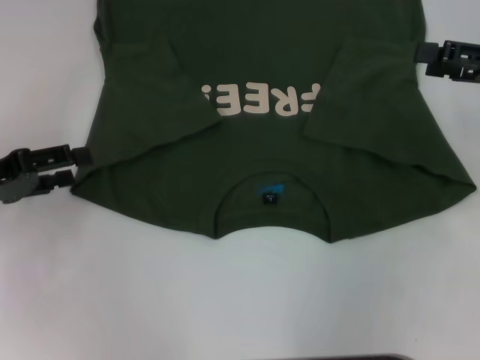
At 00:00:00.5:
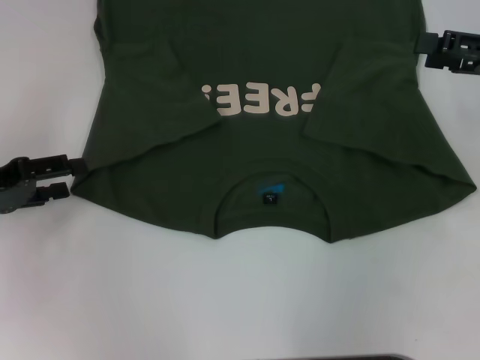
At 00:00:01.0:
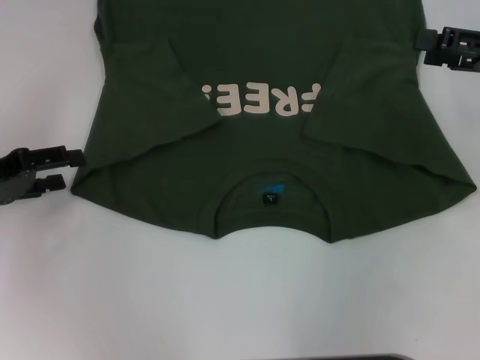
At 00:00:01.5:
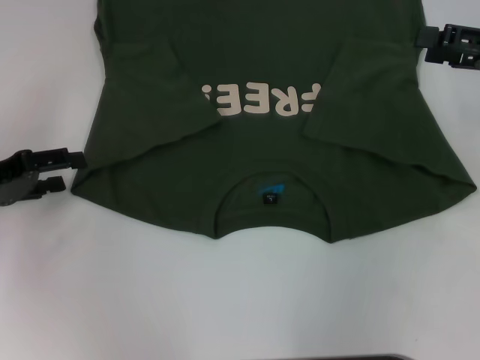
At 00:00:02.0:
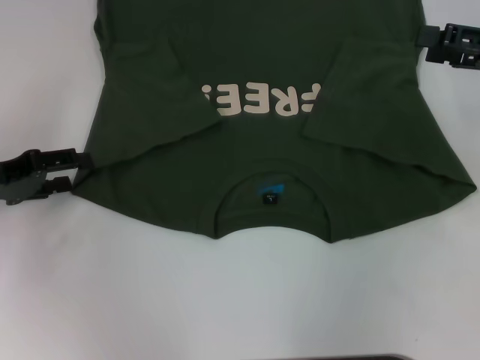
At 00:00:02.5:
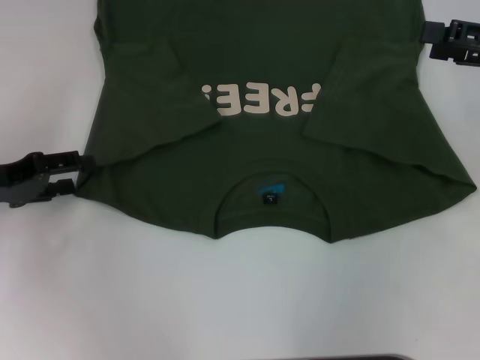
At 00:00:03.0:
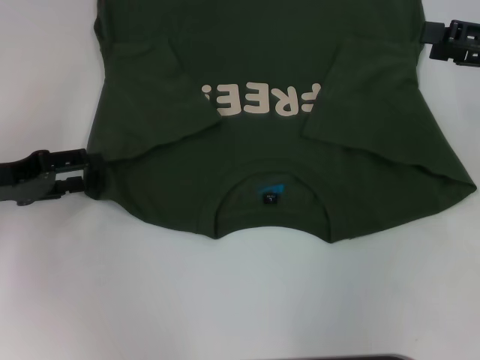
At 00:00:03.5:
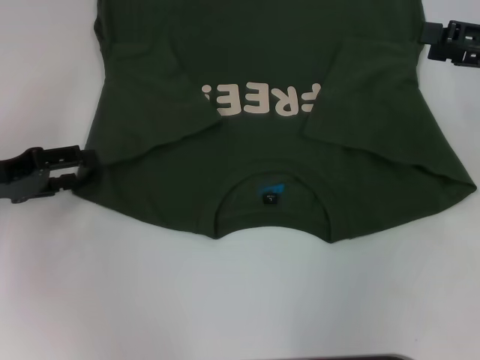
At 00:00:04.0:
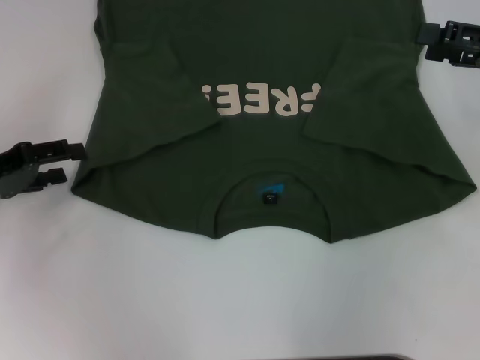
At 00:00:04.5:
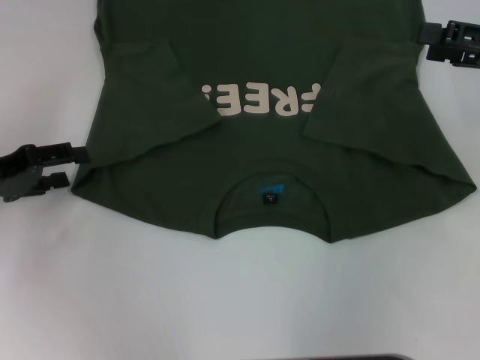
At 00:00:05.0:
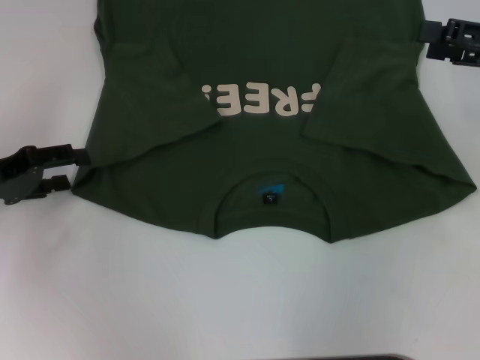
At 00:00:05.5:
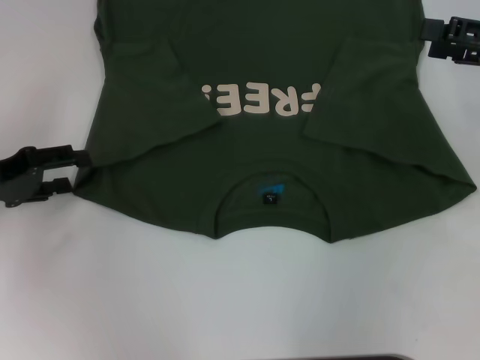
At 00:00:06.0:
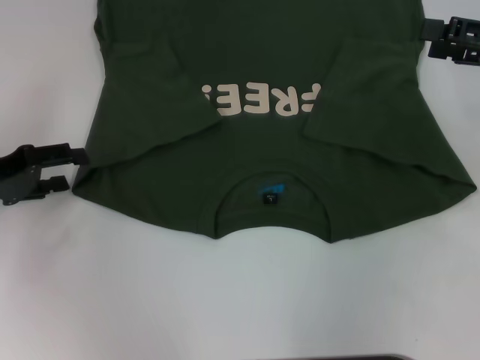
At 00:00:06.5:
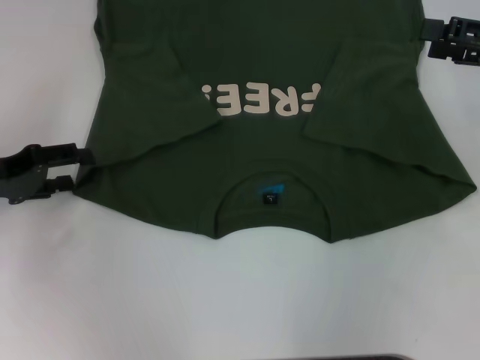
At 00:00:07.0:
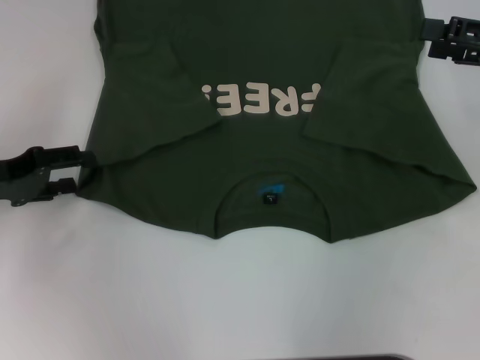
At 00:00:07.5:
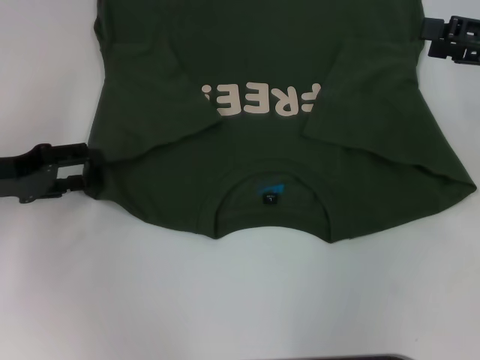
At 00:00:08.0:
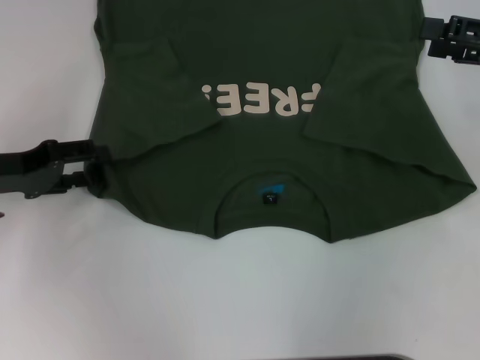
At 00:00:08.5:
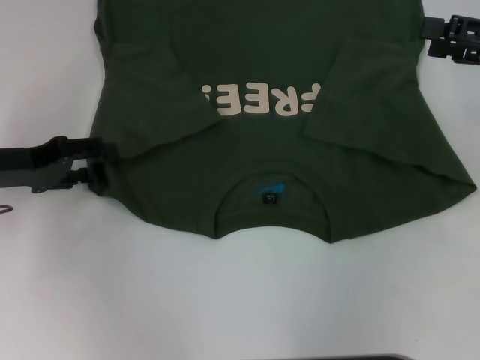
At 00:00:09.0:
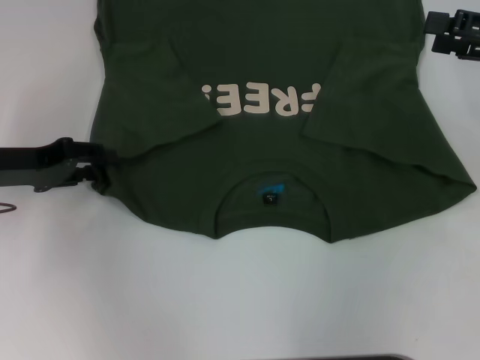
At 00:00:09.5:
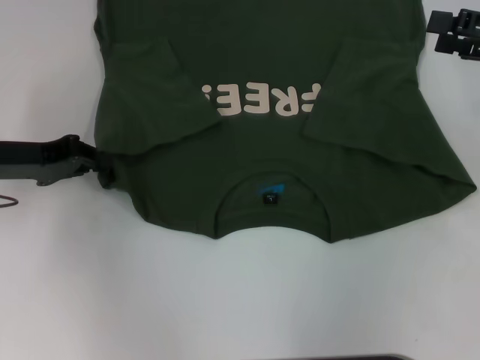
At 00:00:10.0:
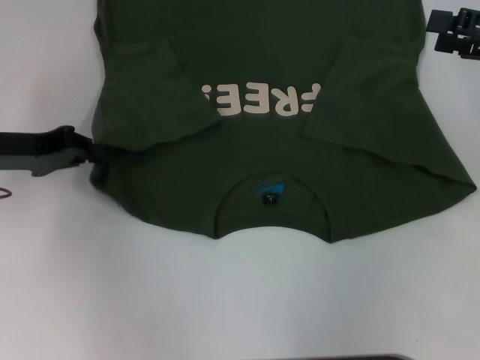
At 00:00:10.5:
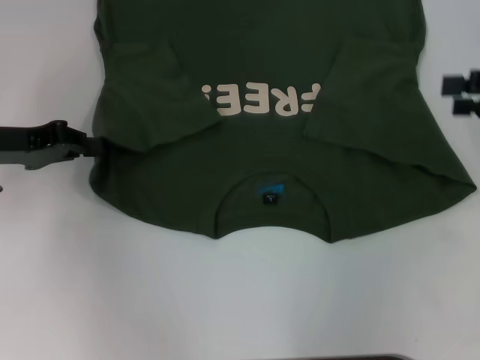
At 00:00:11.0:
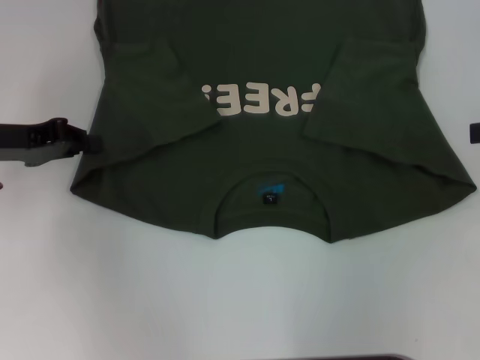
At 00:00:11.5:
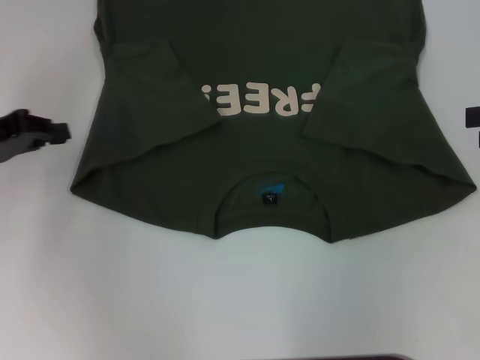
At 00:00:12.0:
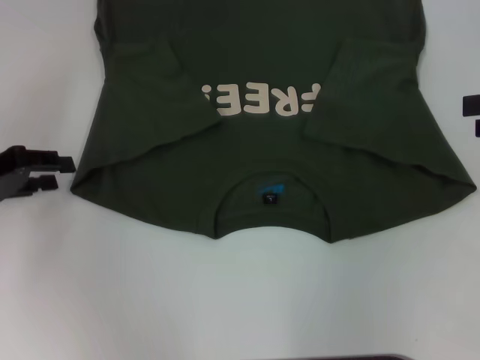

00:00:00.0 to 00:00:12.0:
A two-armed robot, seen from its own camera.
00:00:00.0 to 00:00:08.0: The grippers stay close to where they were, moving slightly.
00:00:08.0 to 00:00:10.0: The left gripper closes its fingers.
00:00:10.0 to 00:00:12.0: The left gripper shifts by roughly 5 cm.

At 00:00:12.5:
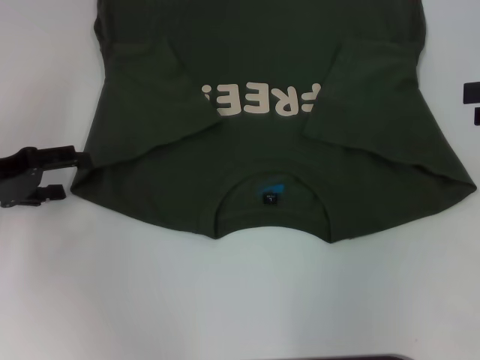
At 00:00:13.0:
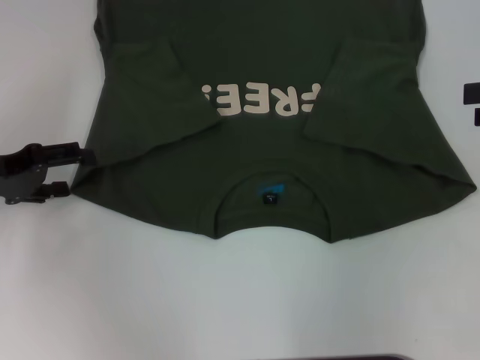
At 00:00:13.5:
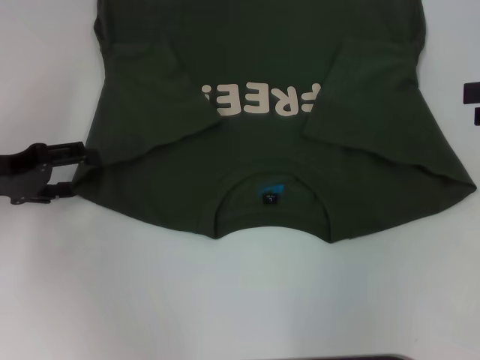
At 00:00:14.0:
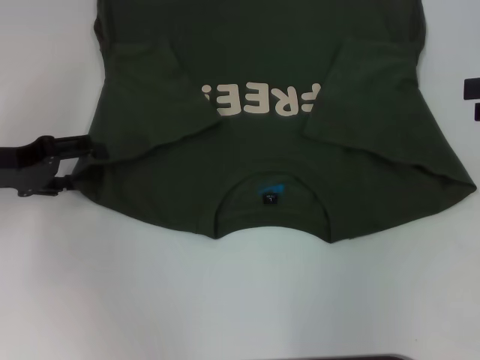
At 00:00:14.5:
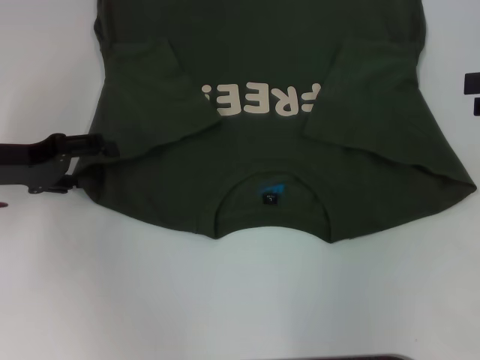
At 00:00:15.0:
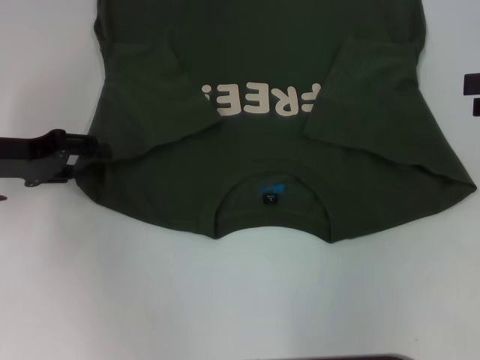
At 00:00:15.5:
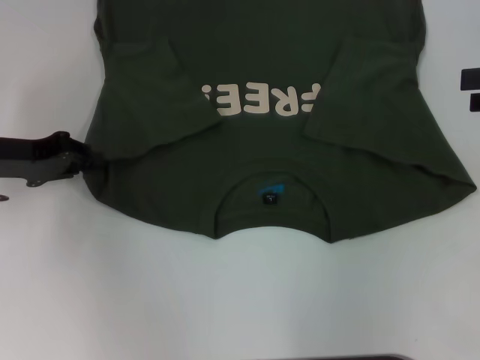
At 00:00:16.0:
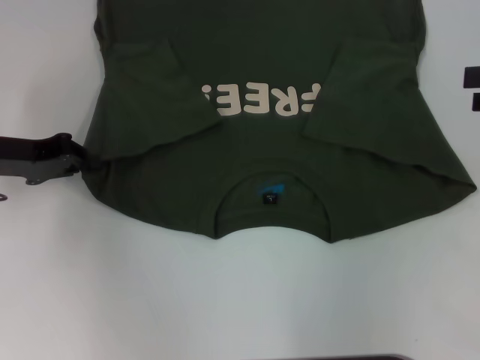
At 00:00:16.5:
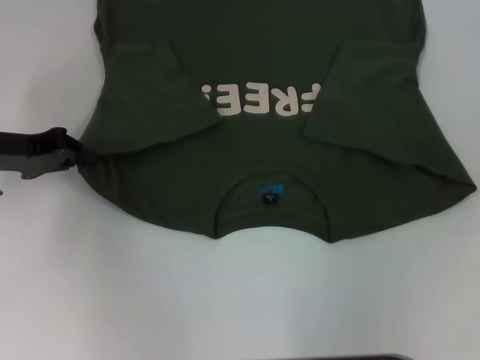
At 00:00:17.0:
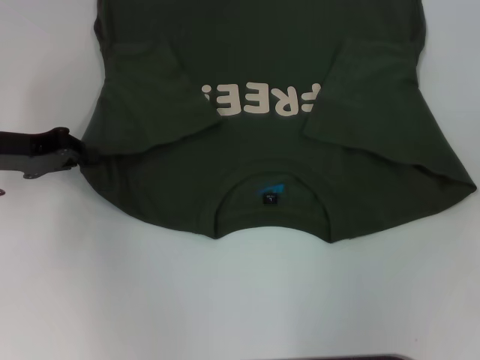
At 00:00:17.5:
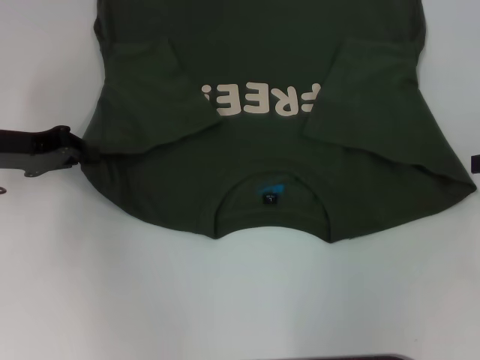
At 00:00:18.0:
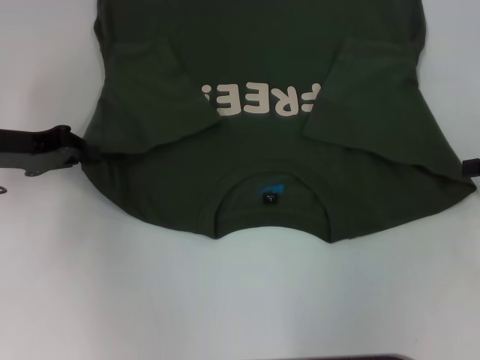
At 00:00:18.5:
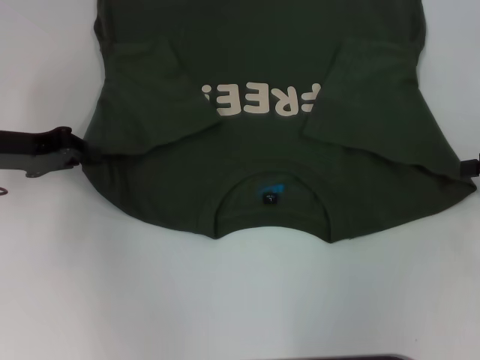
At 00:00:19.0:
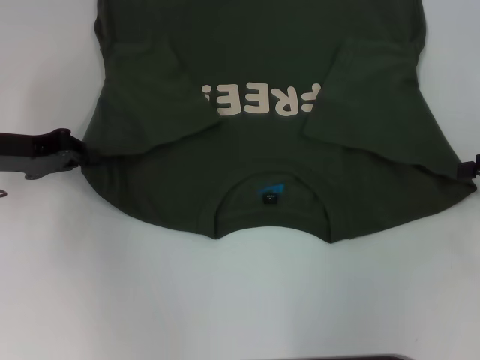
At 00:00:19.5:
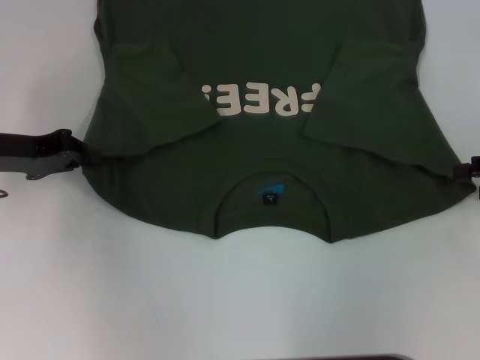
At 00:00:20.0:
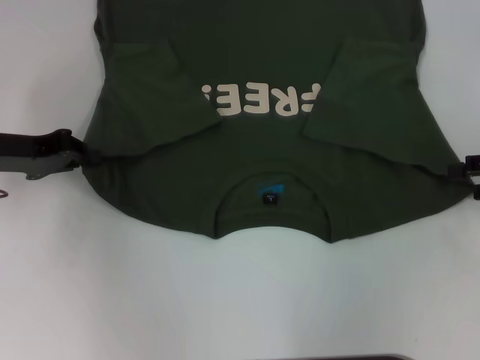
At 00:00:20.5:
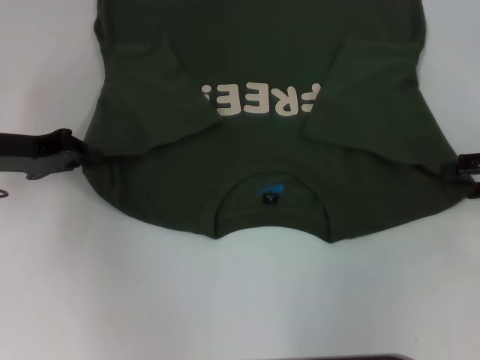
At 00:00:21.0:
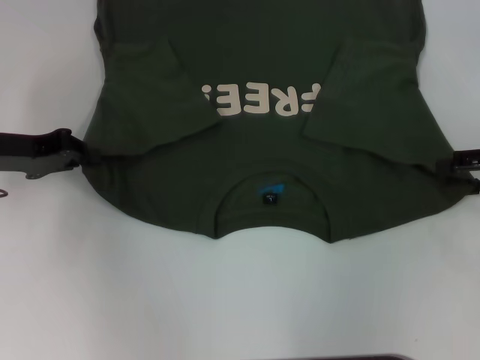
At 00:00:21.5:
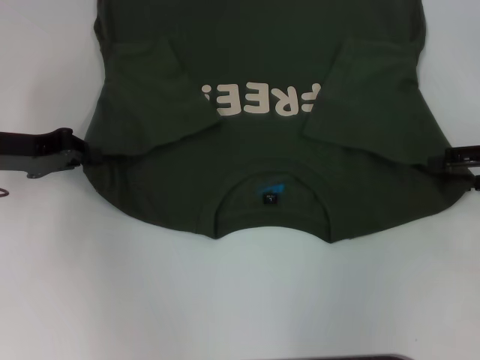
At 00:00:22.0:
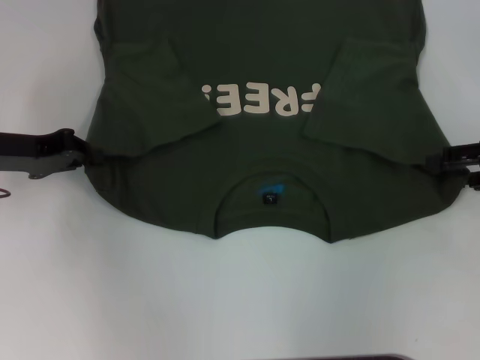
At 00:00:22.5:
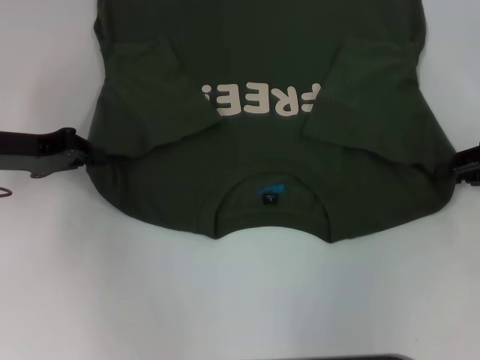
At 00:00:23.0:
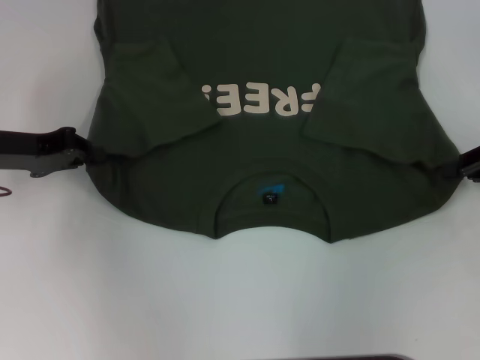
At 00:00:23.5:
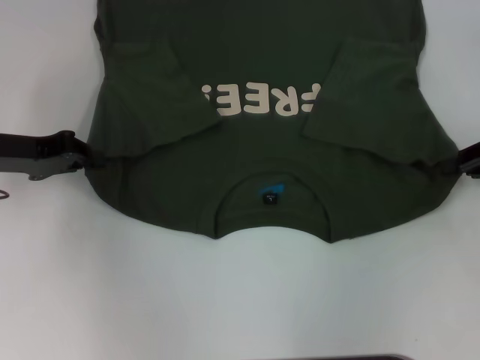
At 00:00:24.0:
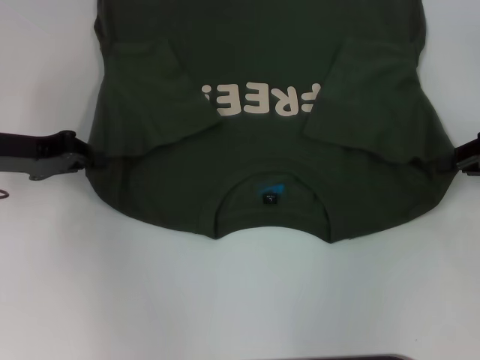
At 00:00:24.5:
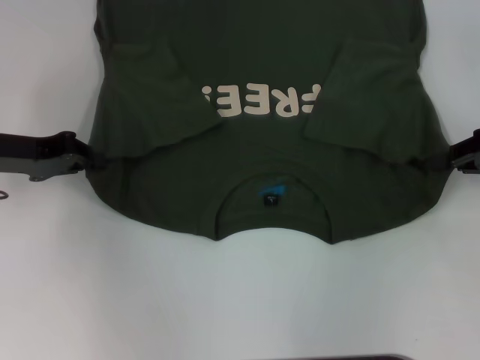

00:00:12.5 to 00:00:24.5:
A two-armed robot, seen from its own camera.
Step, 00:00:12.5 to 00:00:15.5: Grab the bottom left corner with your left hand.
Step, 00:00:16.0 to 00:00:22.5: Grab the bottom right corner with your right hand.
00:00:12.5 to 00:00:14.5: There are only small adjustments of the grippers.
00:00:14.5 to 00:00:16.5: The left gripper closes its fingers.
00:00:20.5 to 00:00:22.5: The right gripper closes.
00:00:22.5 to 00:00:24.5: The right gripper closes.

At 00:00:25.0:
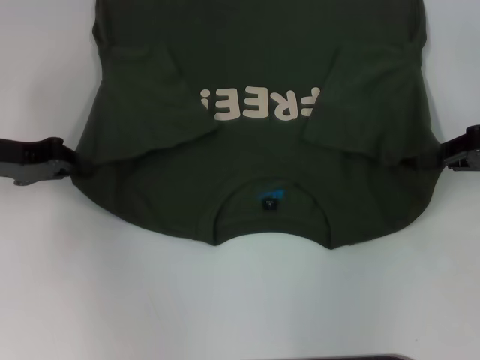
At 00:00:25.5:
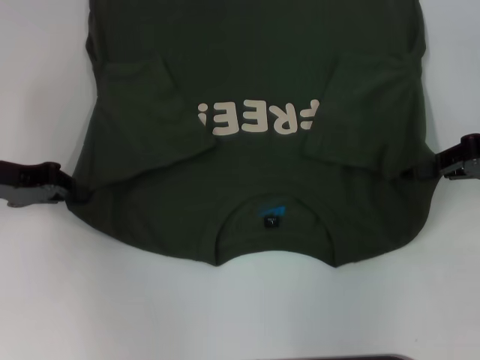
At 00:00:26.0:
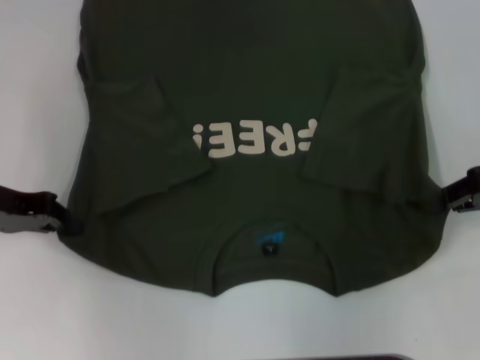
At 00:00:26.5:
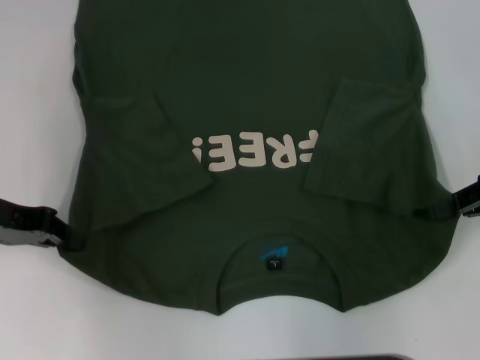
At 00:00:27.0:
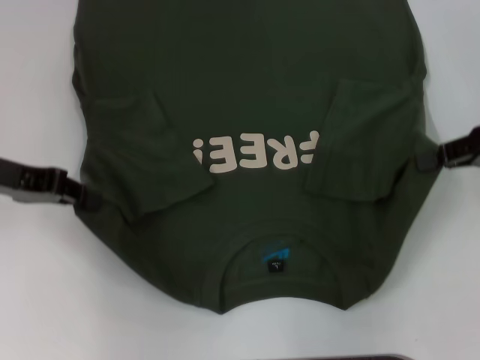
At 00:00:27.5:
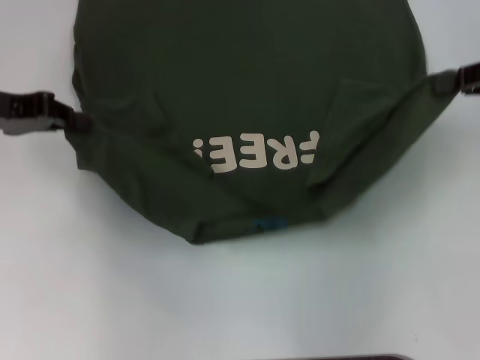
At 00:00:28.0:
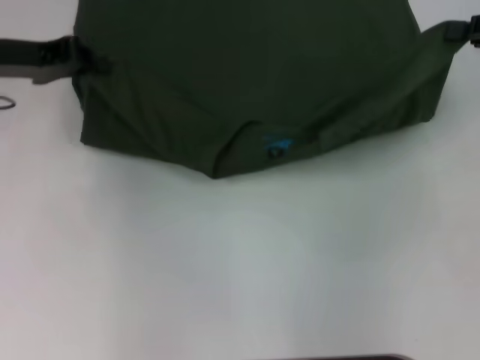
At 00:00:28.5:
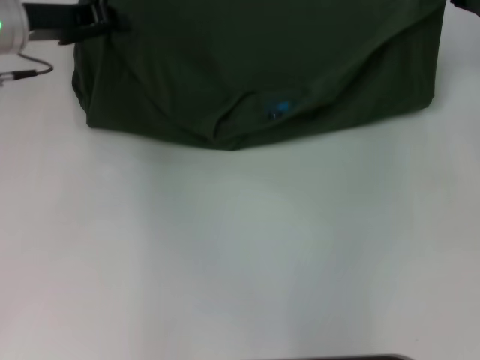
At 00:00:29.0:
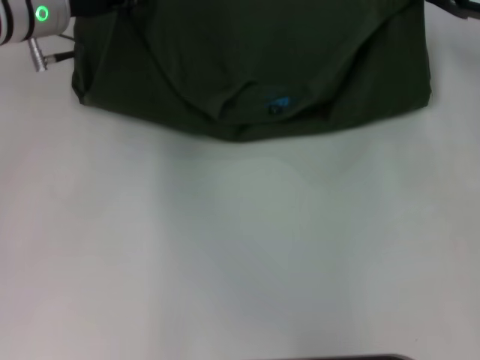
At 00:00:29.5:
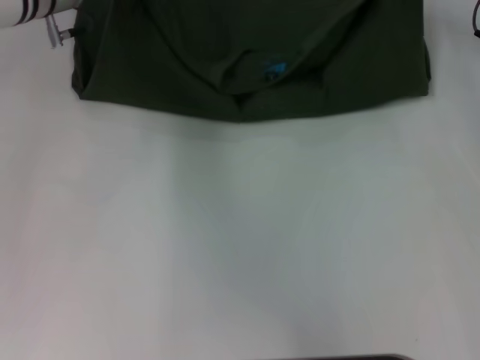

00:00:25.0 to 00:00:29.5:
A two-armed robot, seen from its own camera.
00:00:27.0 to 00:00:29.5: The right gripper moves forward and to the left, about 15 cm. Meanwhile the left gripper moves forward and to the right, about 15 cm.
